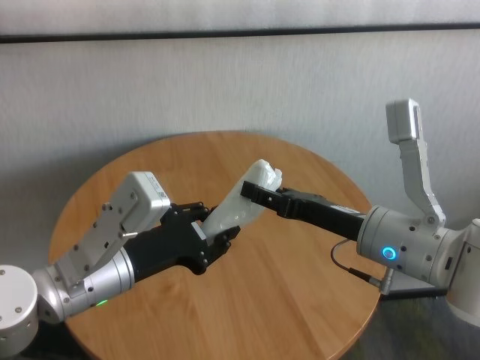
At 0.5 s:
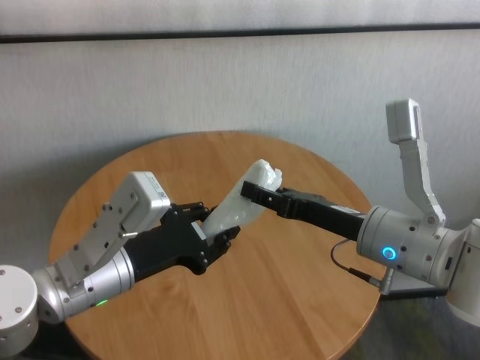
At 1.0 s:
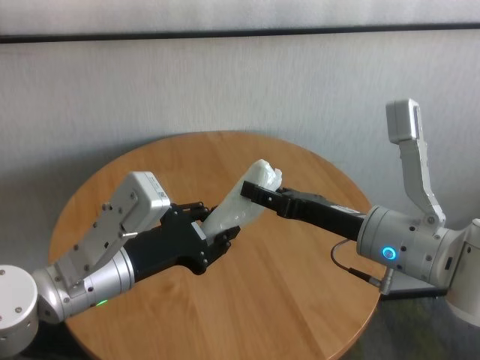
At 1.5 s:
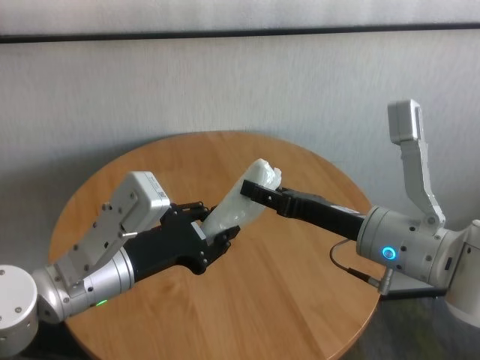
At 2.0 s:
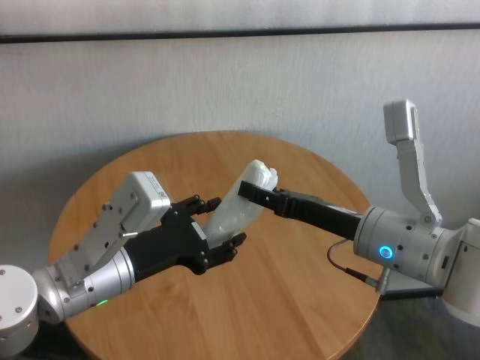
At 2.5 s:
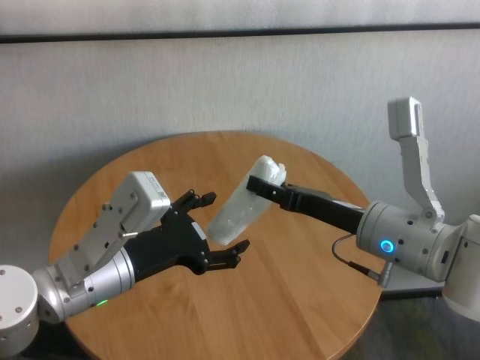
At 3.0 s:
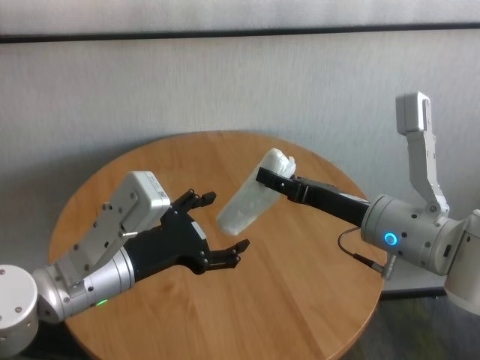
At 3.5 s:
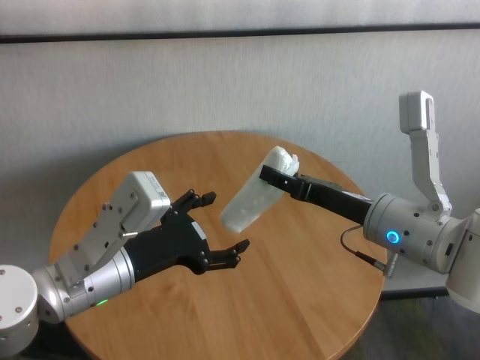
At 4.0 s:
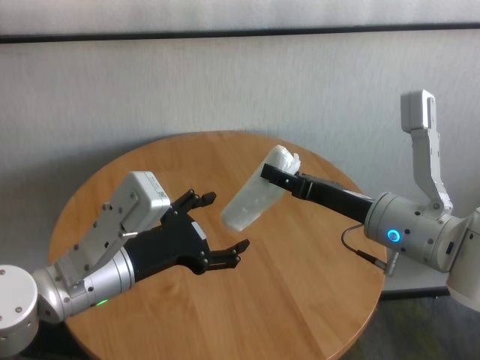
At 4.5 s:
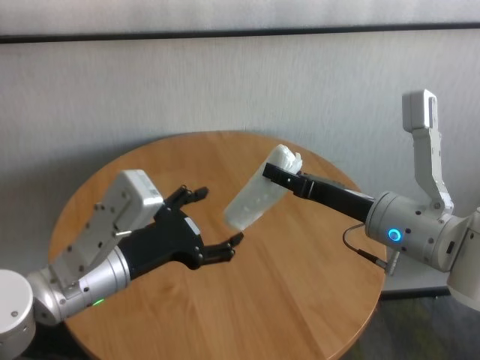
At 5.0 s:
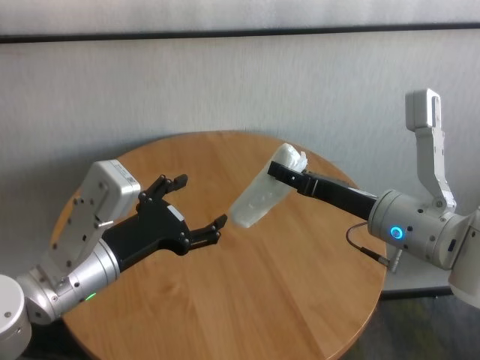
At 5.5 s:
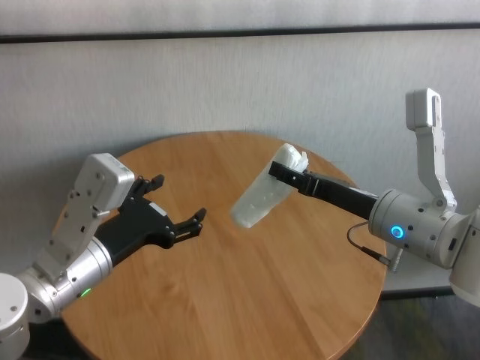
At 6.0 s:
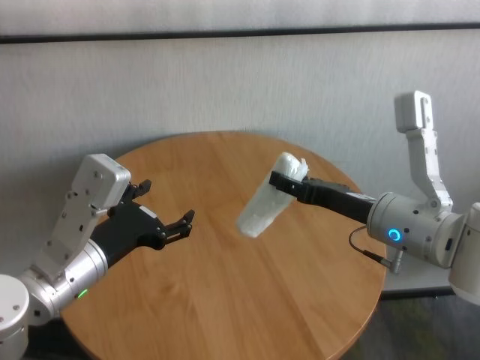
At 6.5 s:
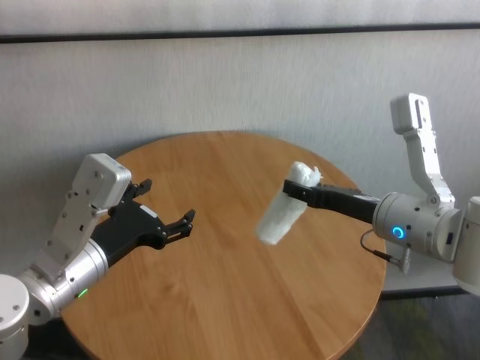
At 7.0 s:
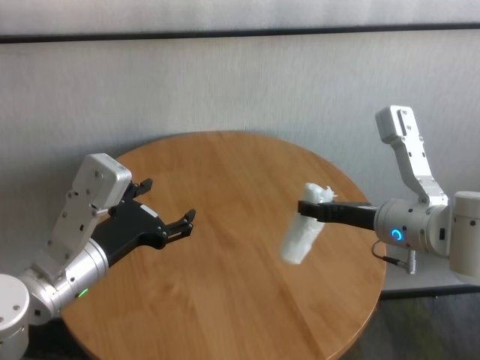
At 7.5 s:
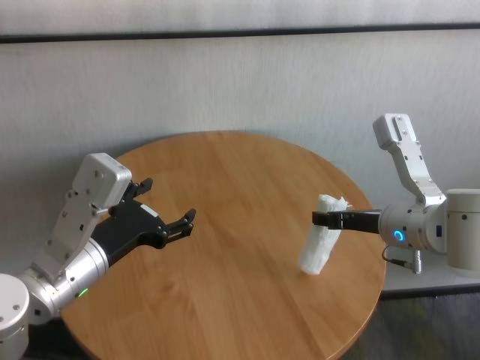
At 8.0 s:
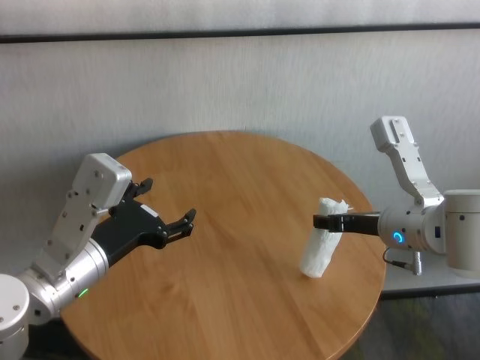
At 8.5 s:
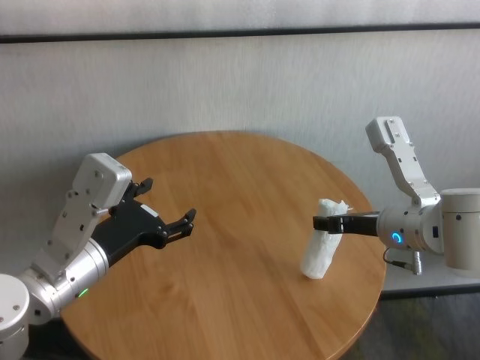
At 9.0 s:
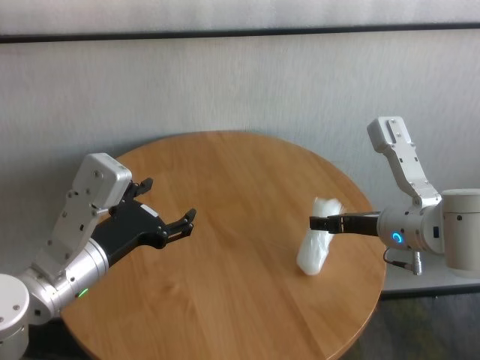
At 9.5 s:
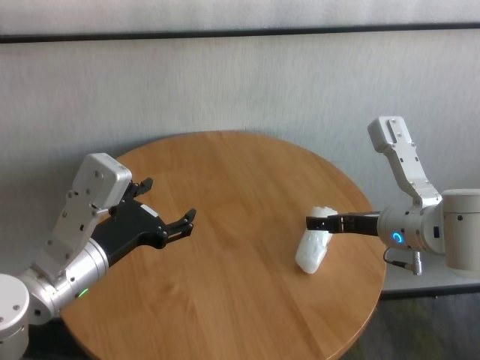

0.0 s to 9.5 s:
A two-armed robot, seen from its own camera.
Task of the whole recording: One hand took the sandbag from the other hand and placed it on the table.
Step, 0.0 to 4.0 s: Pass the paper ball to the right gripper.
Step, 4.5 to 9.0 s: Place the paper ball on the table with right gripper.

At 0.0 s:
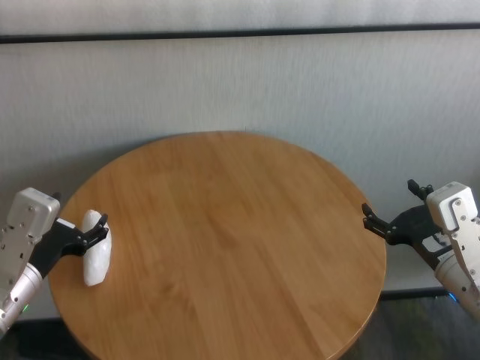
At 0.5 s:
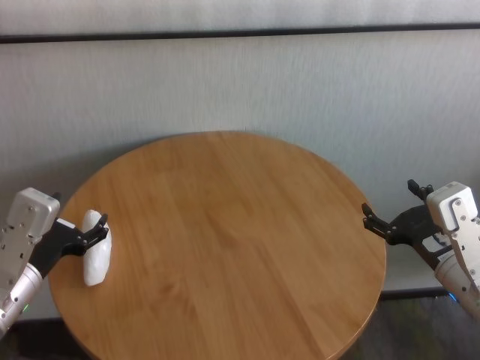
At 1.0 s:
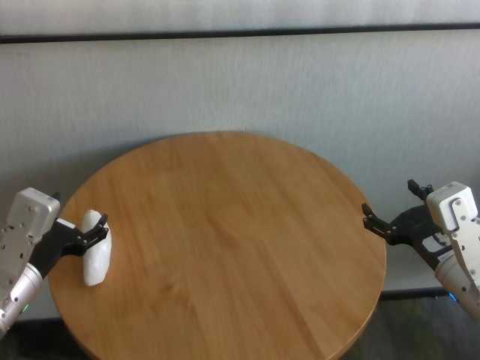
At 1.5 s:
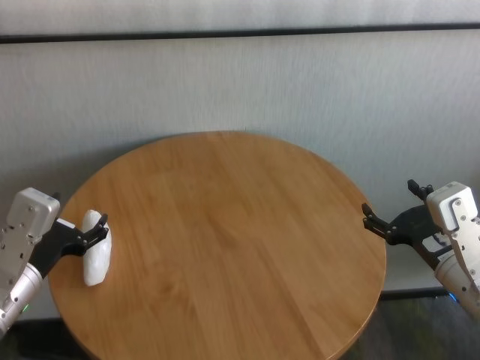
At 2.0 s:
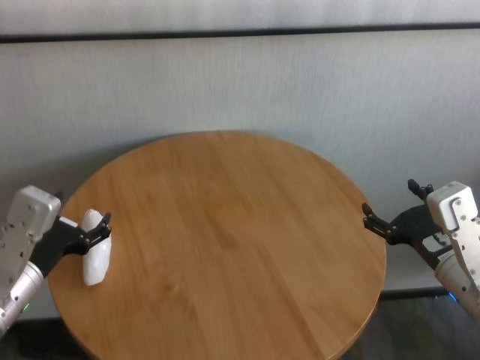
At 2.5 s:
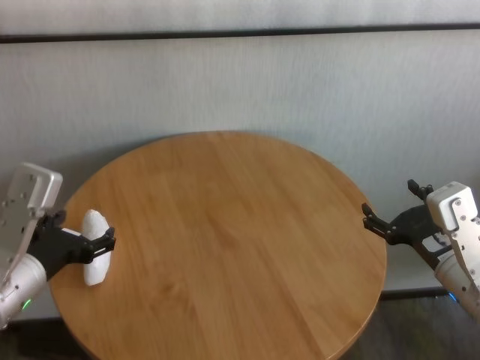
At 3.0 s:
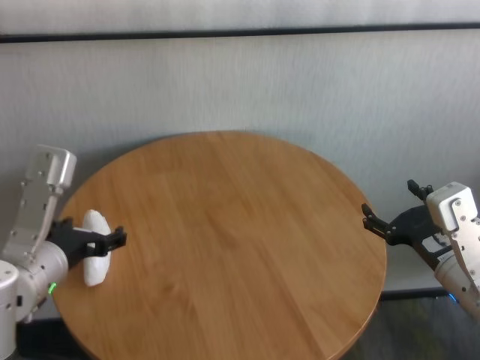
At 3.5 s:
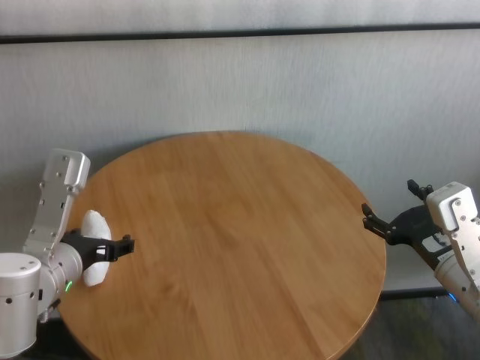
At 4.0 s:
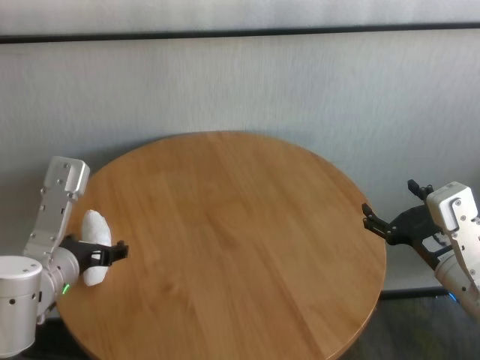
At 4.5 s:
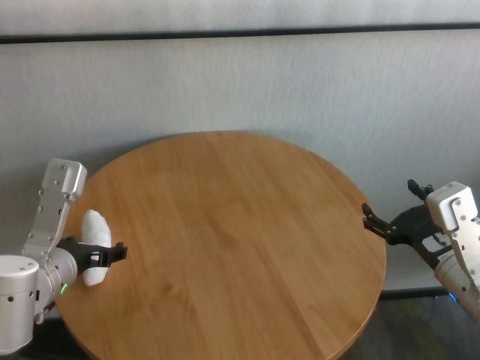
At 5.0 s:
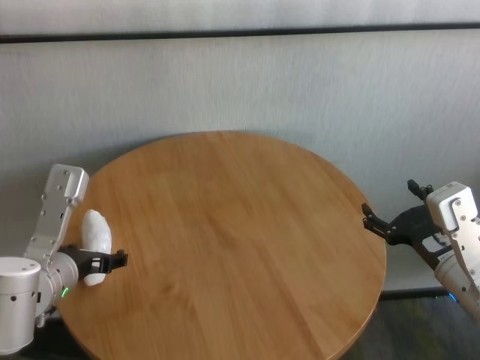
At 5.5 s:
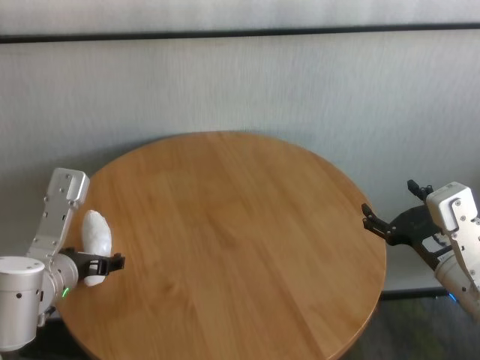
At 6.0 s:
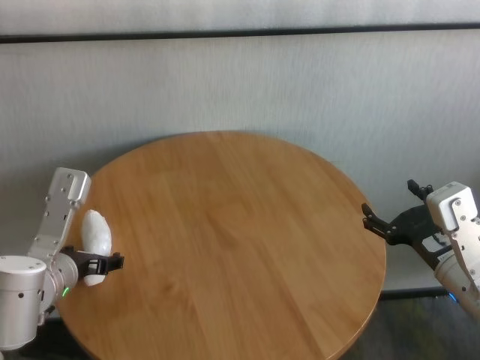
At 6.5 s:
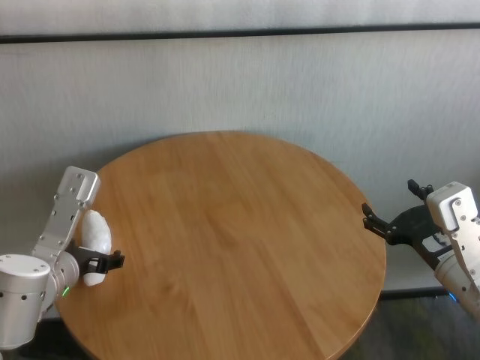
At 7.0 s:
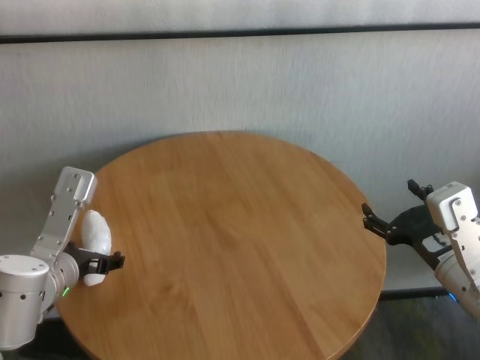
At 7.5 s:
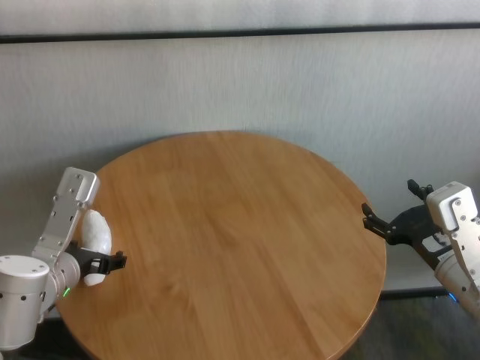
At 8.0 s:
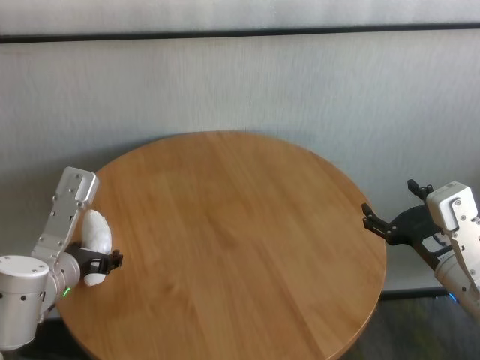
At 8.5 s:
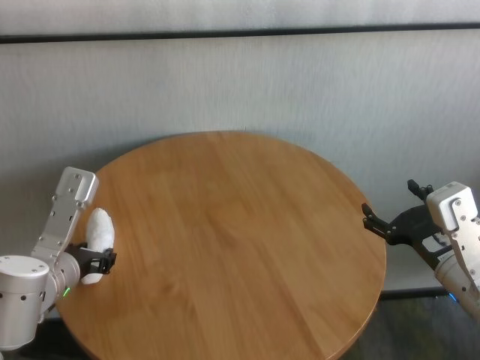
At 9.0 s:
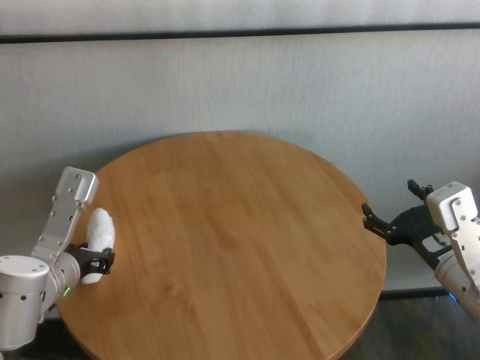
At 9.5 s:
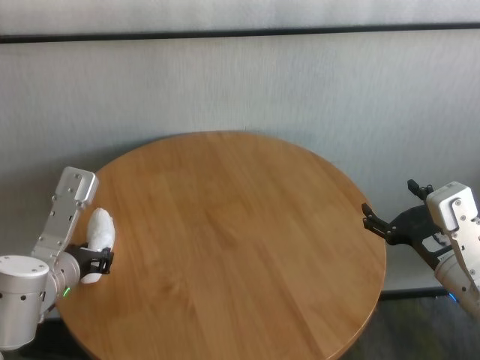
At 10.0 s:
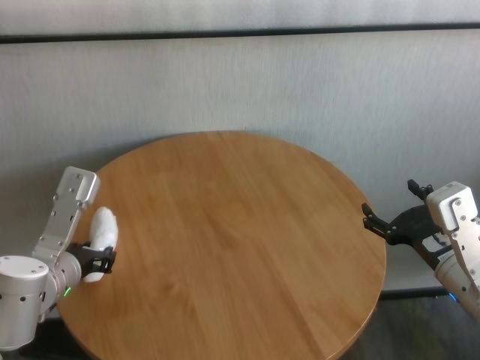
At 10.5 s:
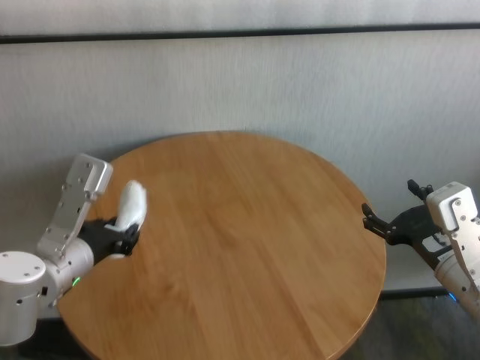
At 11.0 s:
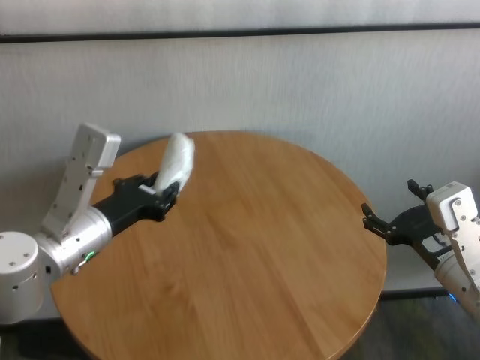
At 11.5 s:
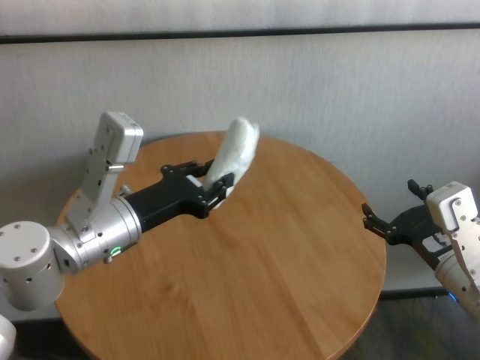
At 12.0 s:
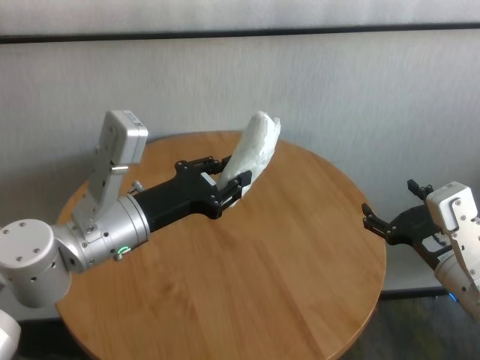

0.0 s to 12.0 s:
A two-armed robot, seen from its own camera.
Task of the whole recording: One hand took the sandbag from the other hand and placed it on the table.
Step, 0.0 to 9.0 s: Grasp the paper ball with left gripper.

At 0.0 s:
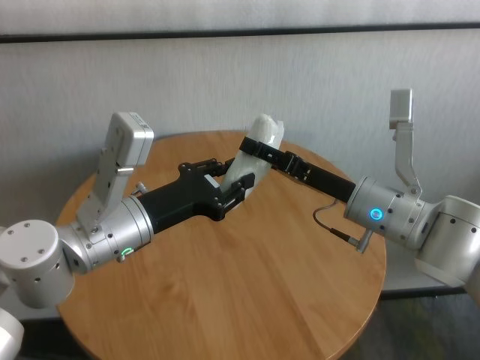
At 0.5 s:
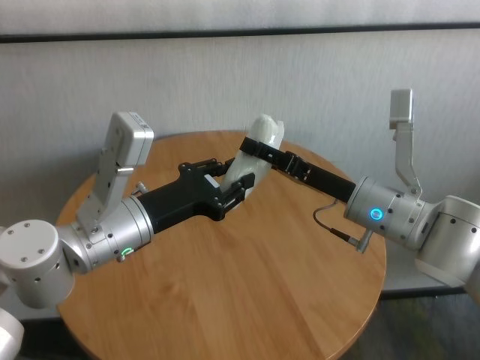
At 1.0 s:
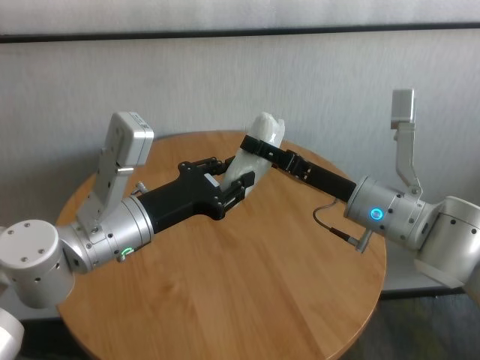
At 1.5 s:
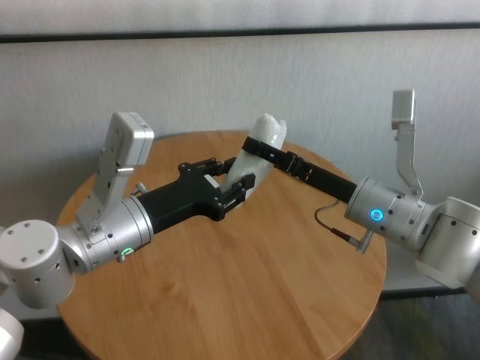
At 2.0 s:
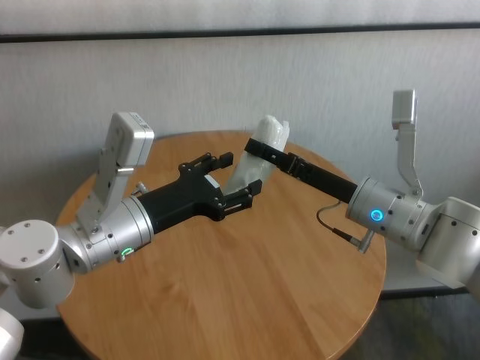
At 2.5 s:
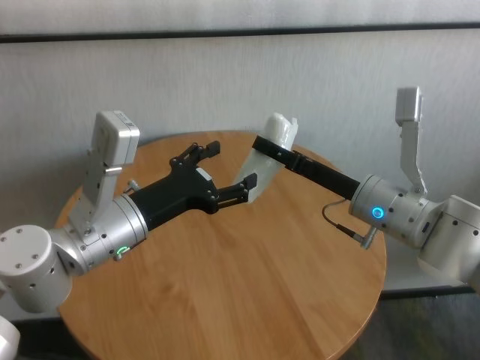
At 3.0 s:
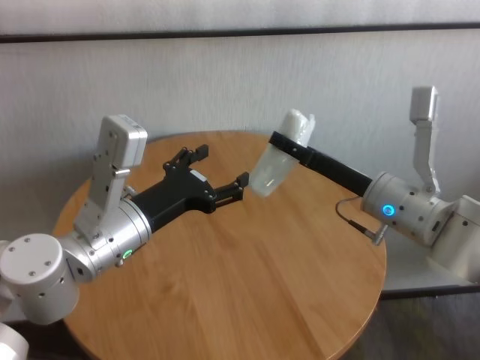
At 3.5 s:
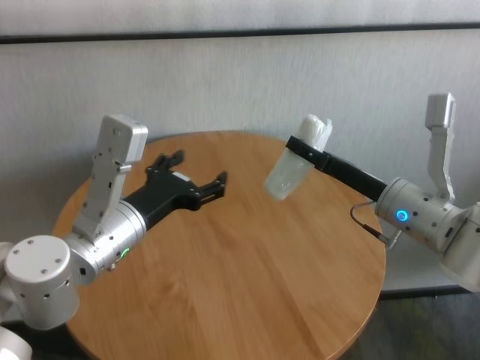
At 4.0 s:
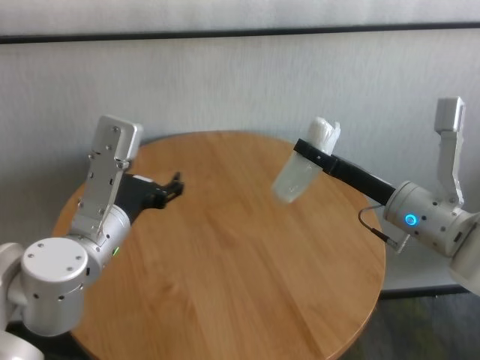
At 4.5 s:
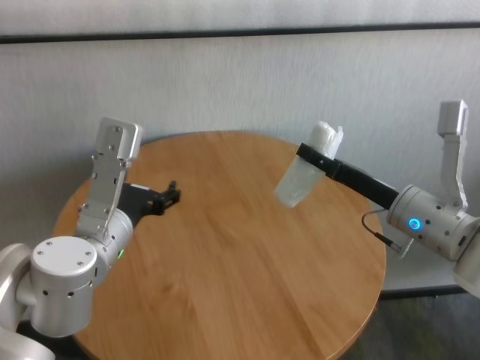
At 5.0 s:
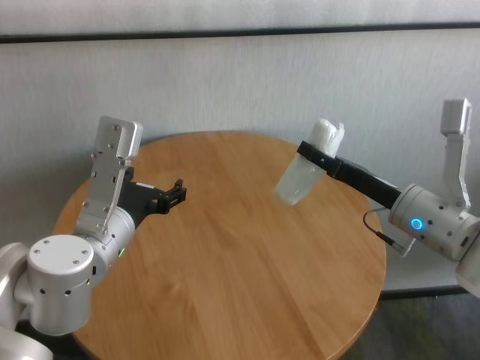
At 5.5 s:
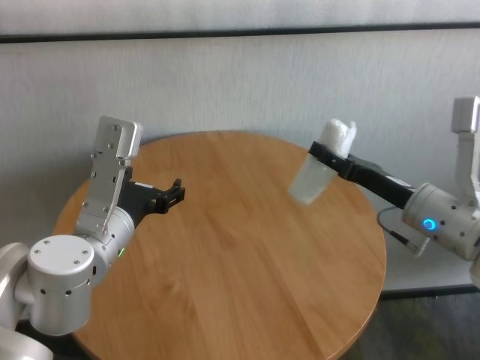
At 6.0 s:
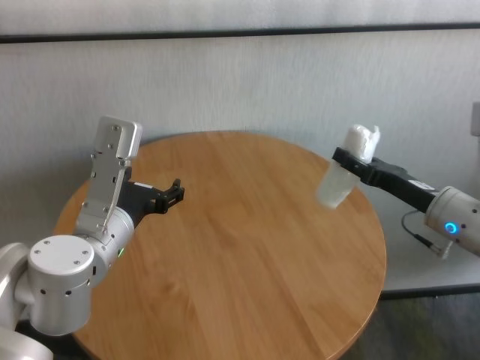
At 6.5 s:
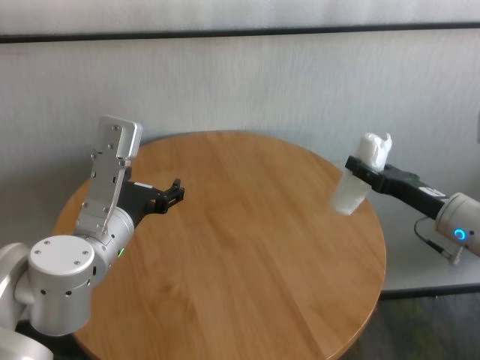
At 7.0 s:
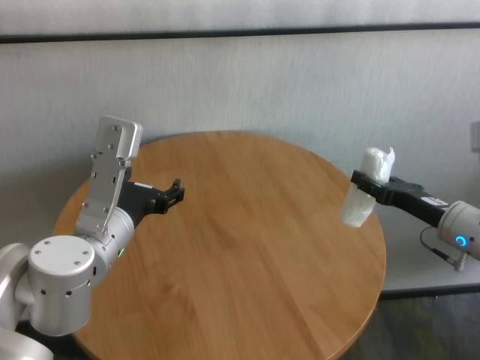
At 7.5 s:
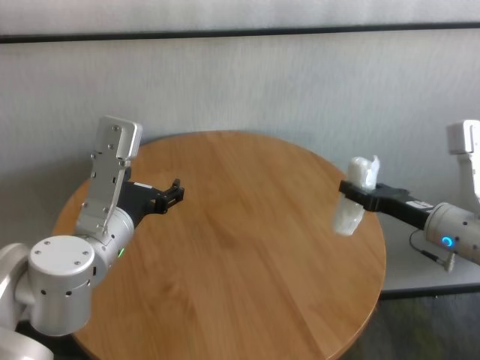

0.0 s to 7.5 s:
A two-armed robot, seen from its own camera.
Task of the whole recording: One hand took the sandbag from the other hand and placed it on the table.
Step, 0.0 to 2.5 s: Pass the paper ball to the right gripper.
